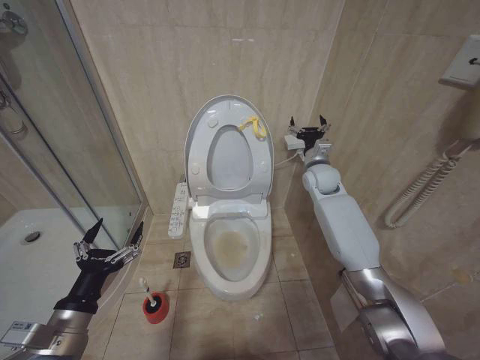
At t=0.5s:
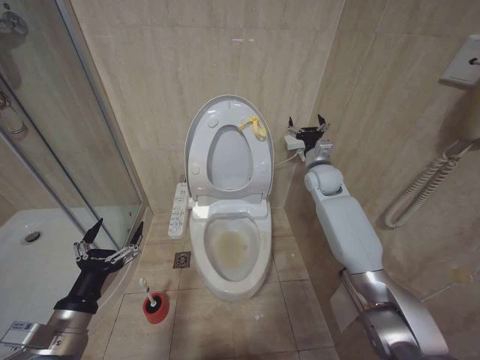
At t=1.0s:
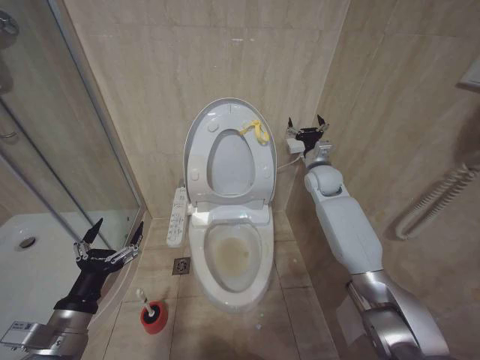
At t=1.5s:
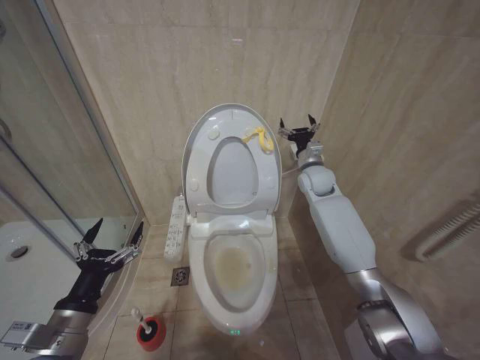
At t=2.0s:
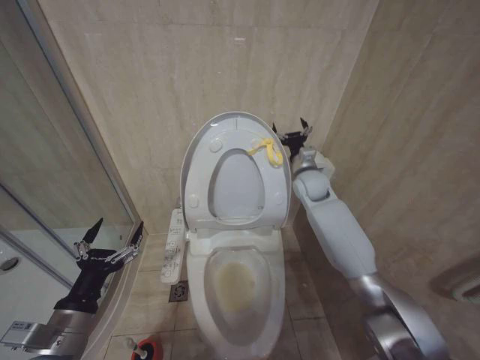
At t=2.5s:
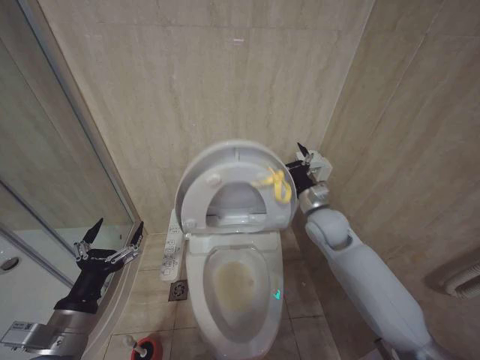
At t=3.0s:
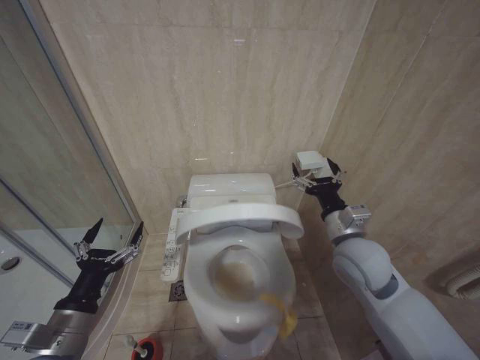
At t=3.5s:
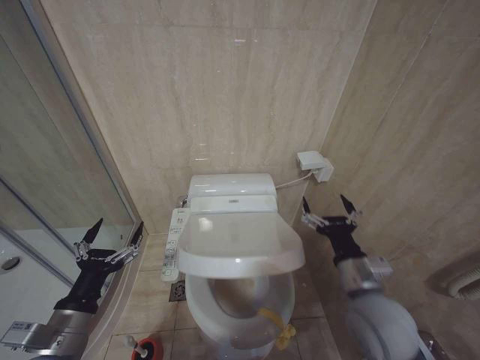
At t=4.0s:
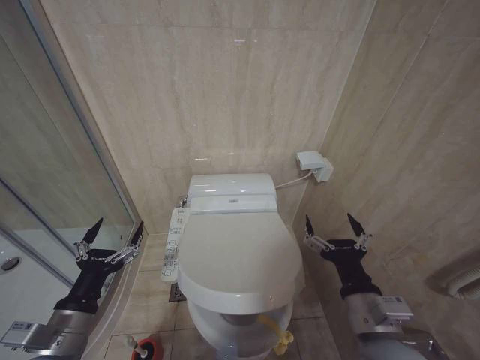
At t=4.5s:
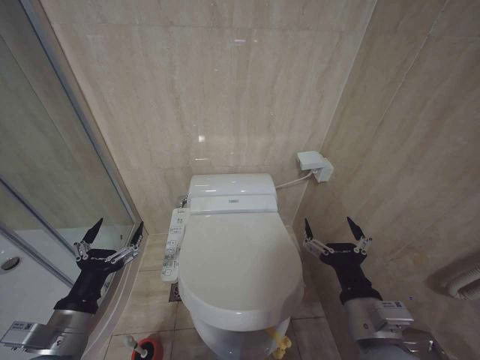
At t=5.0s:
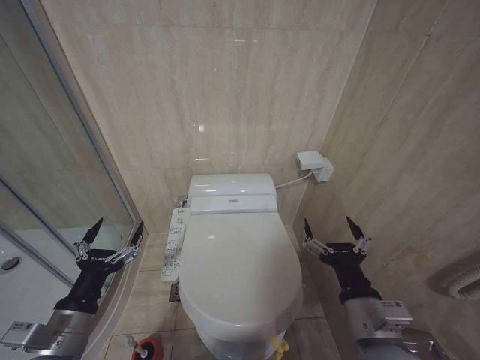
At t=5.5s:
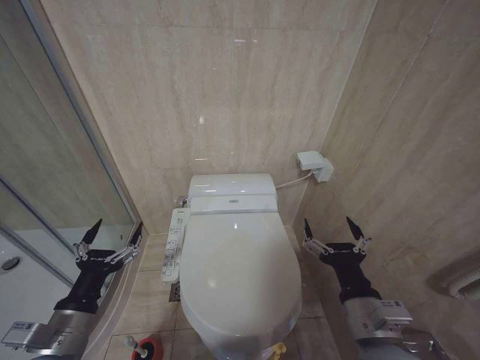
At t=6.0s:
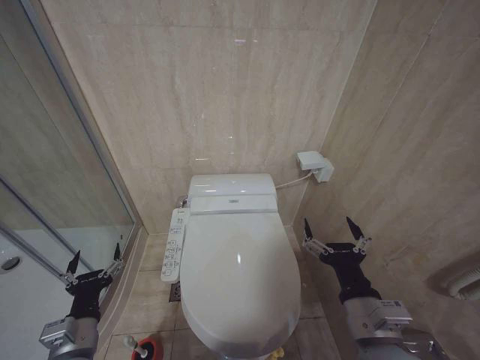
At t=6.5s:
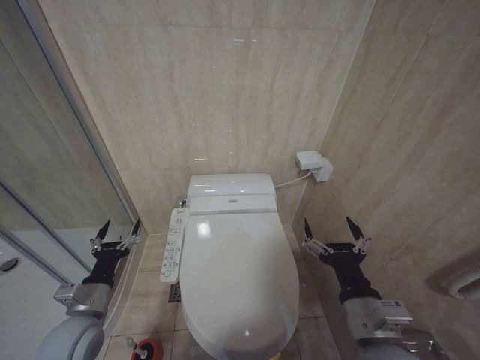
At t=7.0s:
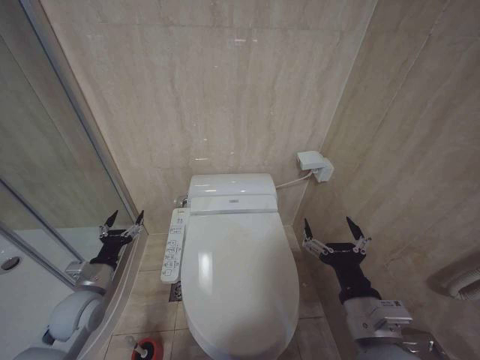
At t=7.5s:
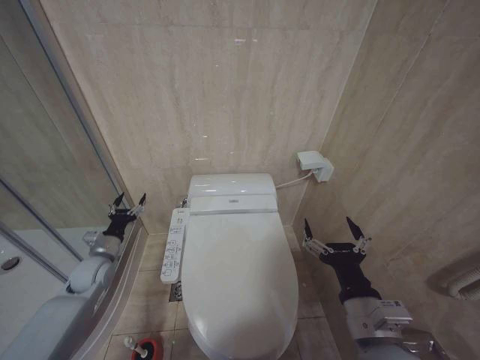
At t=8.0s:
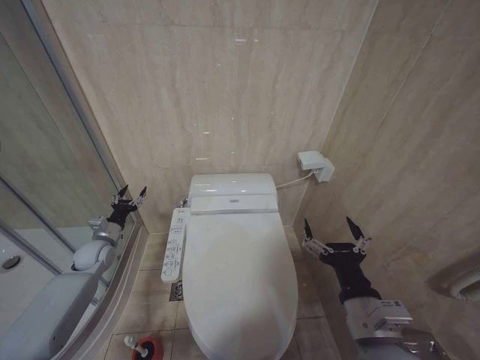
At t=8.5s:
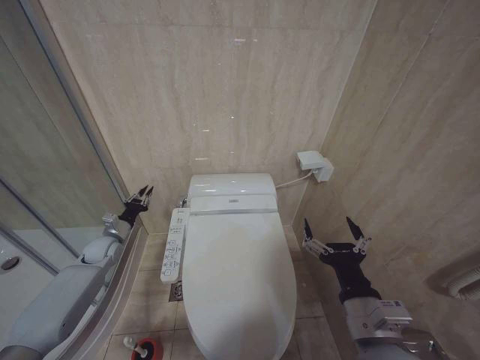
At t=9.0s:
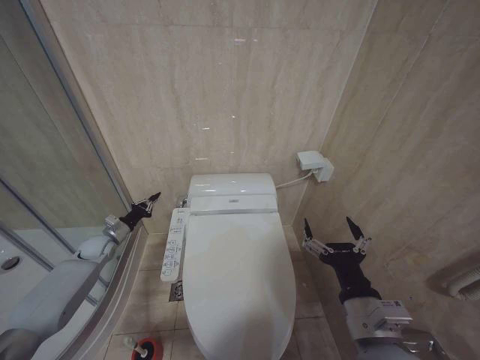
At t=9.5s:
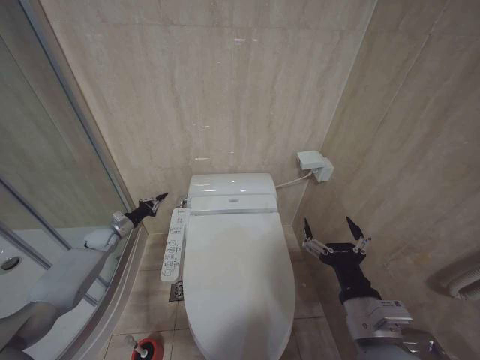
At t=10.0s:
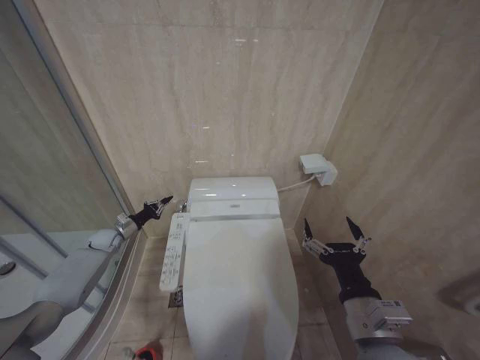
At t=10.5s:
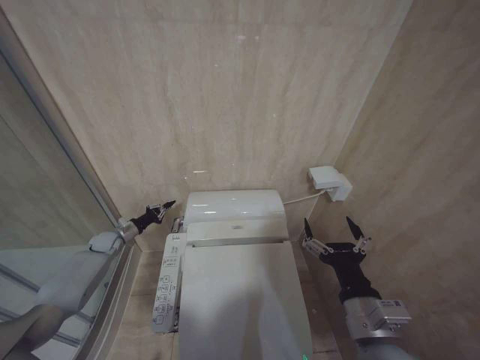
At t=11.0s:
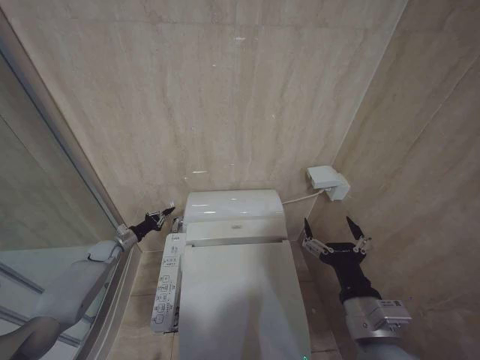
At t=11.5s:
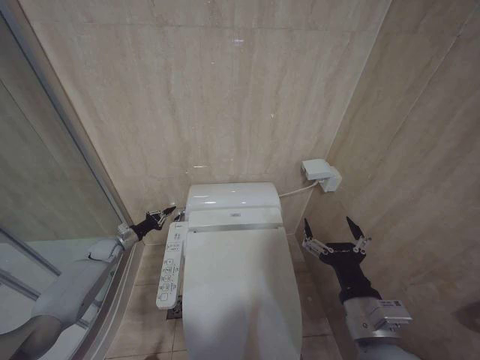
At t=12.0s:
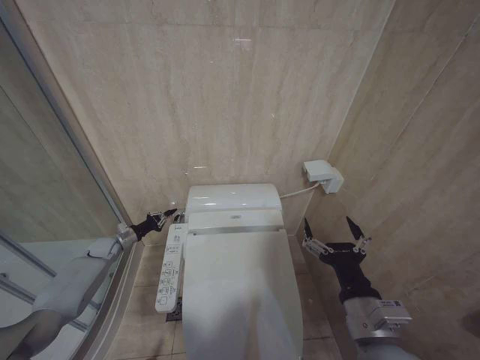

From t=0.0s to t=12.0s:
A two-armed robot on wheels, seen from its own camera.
Task of the whole recording: Open the toilet lid, clean the toilet bowl with a toilet brush, close the toilet lid, and flush.
From t=2.0s to t=4.0s: The right gripper goes about 40 cm backward.
From t=4.0s to t=6.0s: The left gripper is displaced downward by roughly 5 cm.
From t=6.0s to t=8.0s: The left gripper goes roughly 30 cm forward and to the left.
From t=8.0s to t=10.0s: The left gripper goes about 10 cm forward, and closes its fingers.
From t=10.0s to t=12.0s: The grippers move only a little.

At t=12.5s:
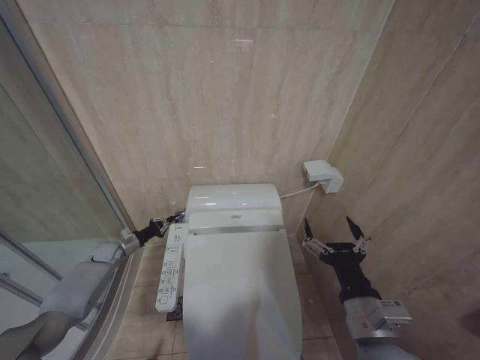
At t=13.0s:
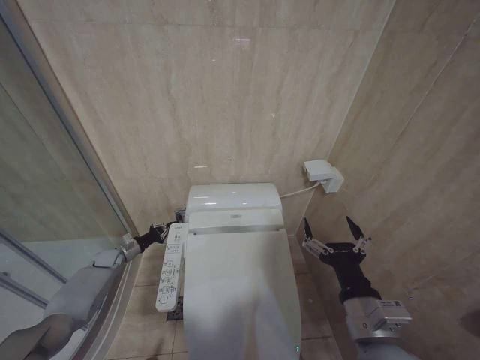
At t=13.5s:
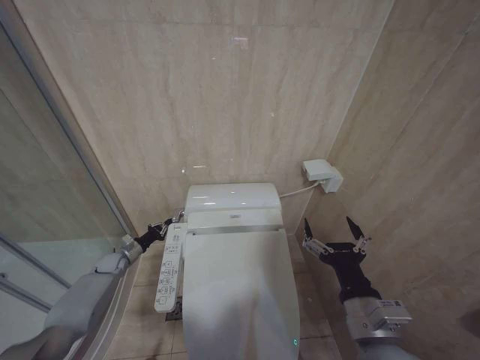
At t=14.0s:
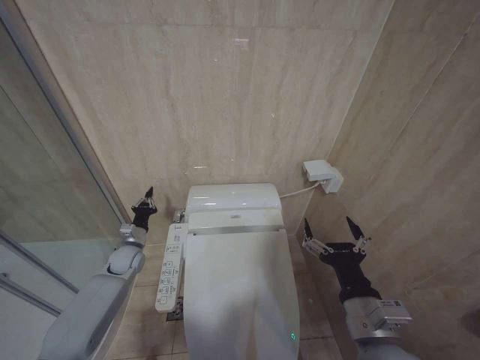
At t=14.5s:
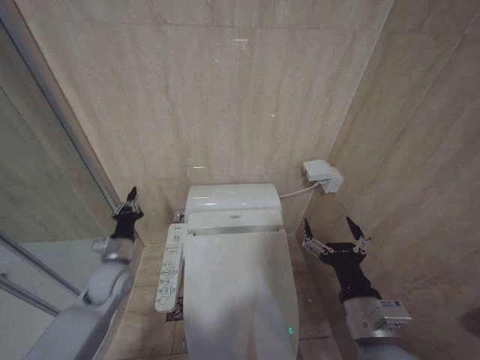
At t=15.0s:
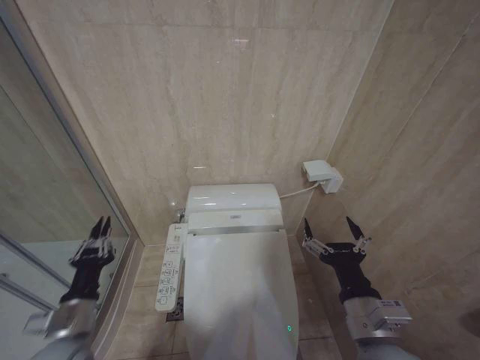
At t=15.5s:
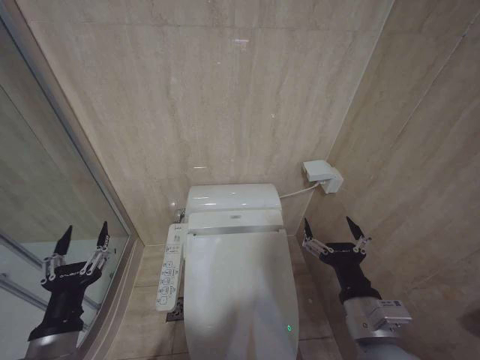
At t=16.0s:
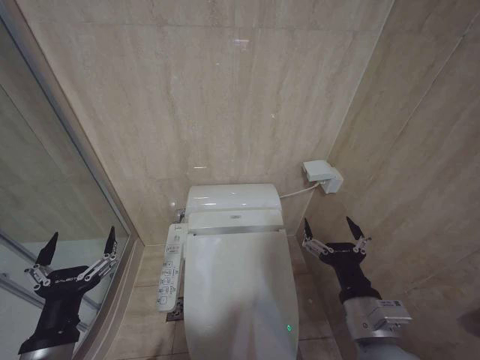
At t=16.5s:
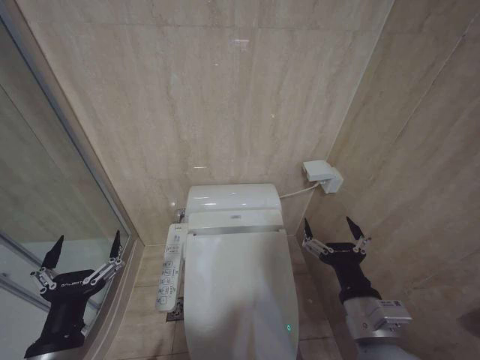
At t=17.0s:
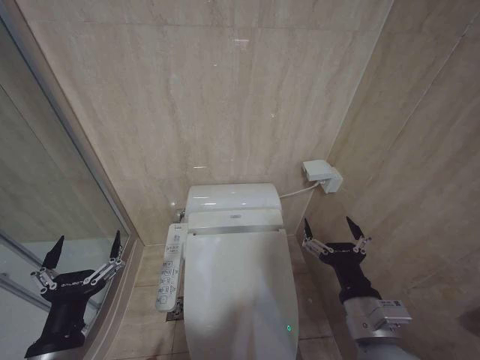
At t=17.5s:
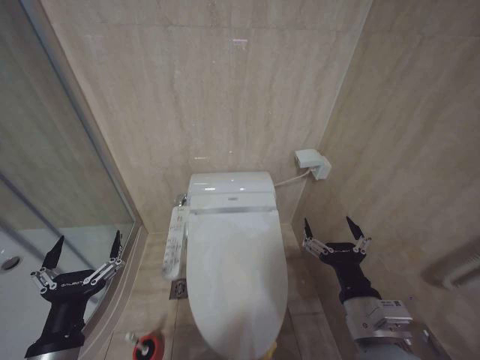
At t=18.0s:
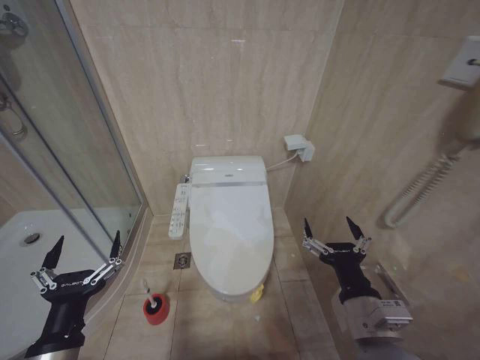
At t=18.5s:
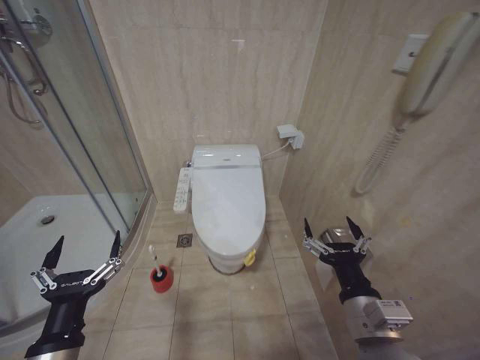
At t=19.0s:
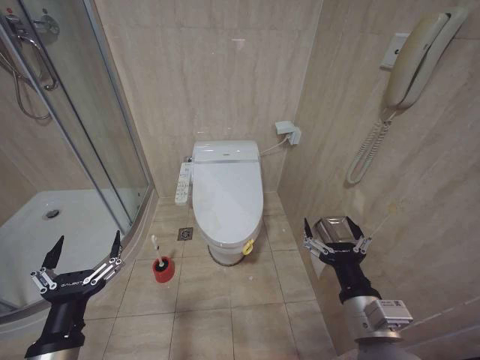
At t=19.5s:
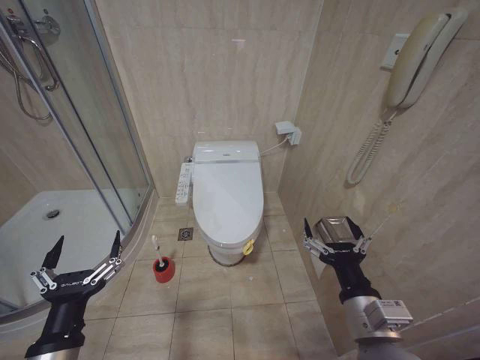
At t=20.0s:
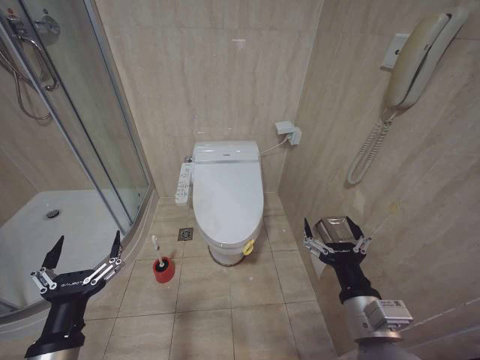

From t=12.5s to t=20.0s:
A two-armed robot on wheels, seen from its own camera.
Task of the whole recording: Open the toilet lid, clean the toilet bowl with a toilet brush, close the toilet lid, and flush.
From t=12.5s to t=14.5s: The left gripper is displaced backward, to the right and upward by roughly 20 cm.
From t=14.5s to t=16.5s: The left gripper is displaced backward by about 25 cm, and opens its fingers.

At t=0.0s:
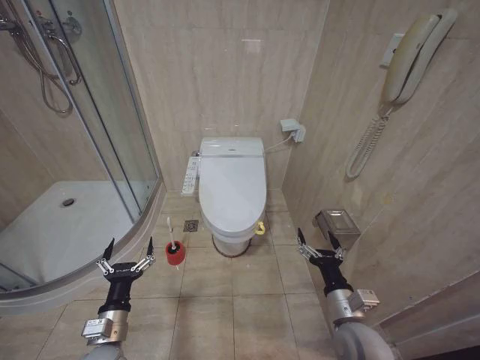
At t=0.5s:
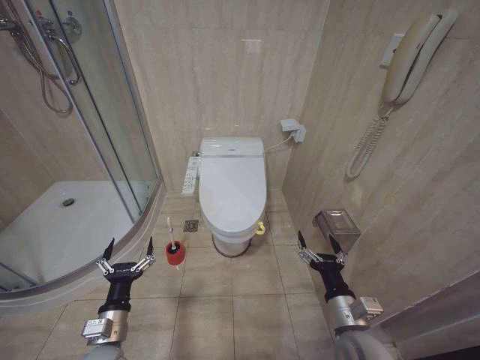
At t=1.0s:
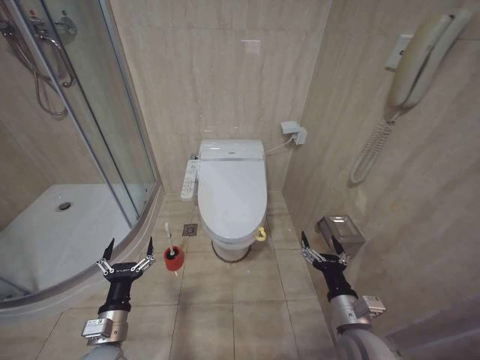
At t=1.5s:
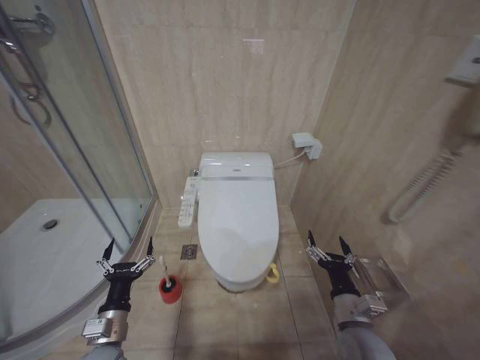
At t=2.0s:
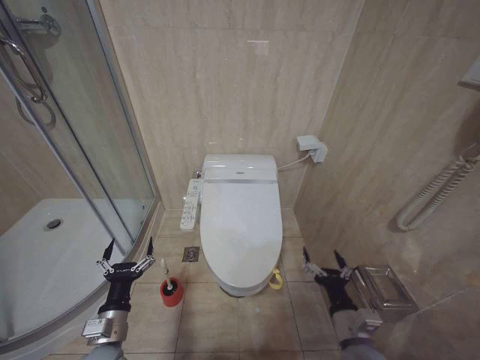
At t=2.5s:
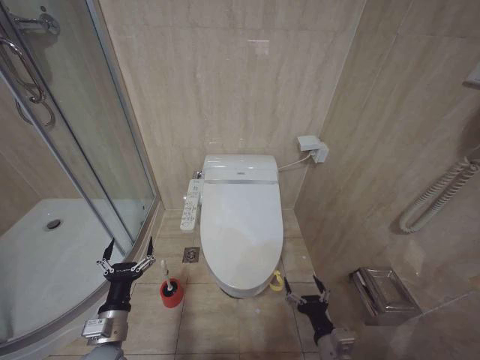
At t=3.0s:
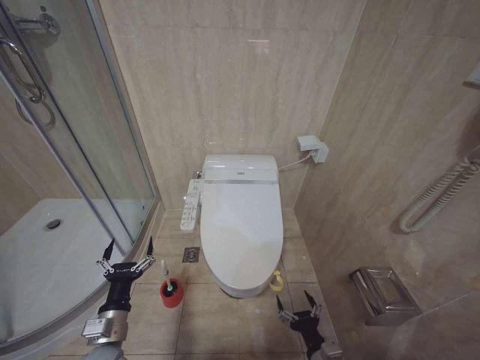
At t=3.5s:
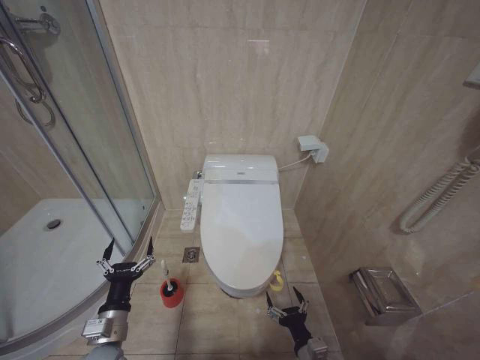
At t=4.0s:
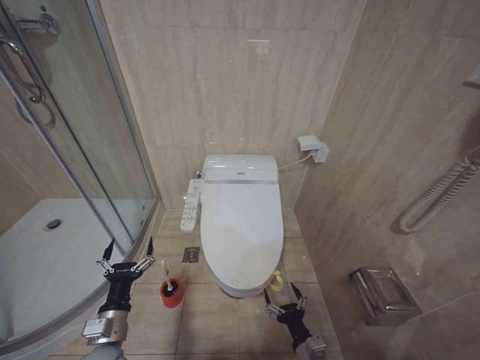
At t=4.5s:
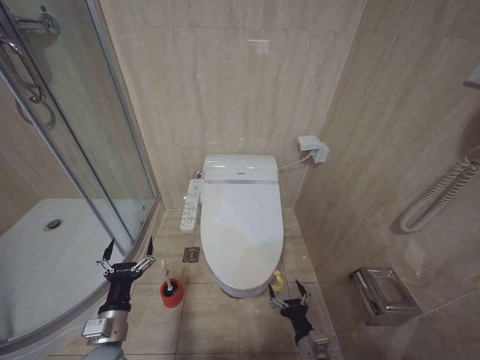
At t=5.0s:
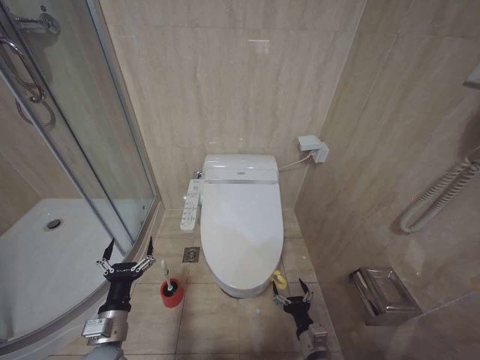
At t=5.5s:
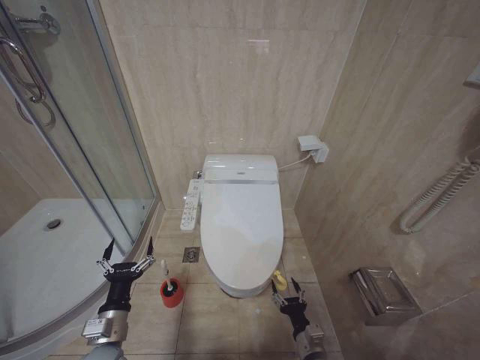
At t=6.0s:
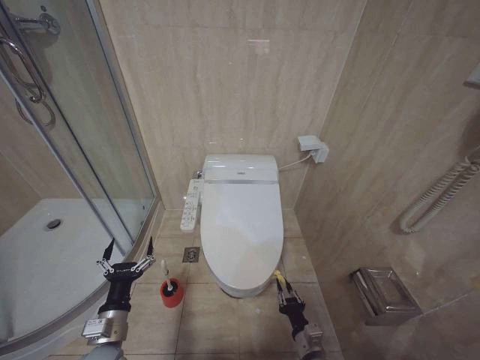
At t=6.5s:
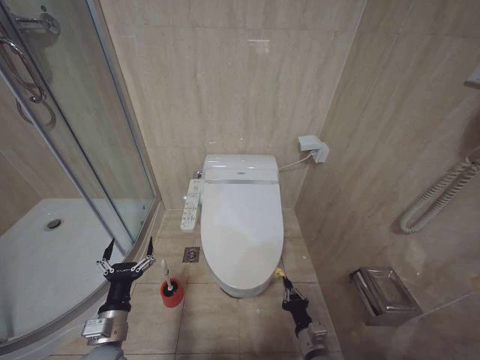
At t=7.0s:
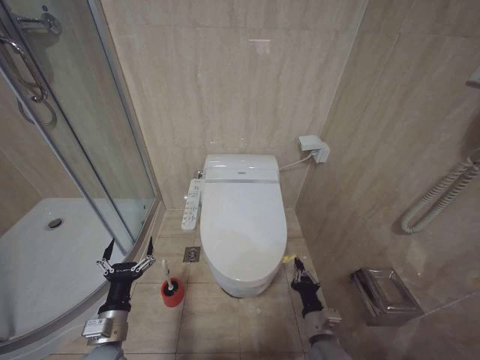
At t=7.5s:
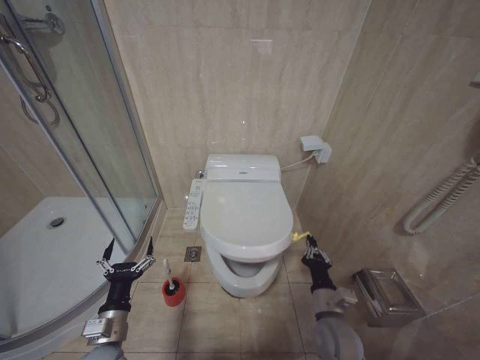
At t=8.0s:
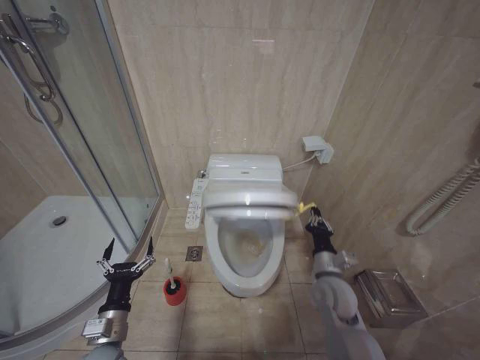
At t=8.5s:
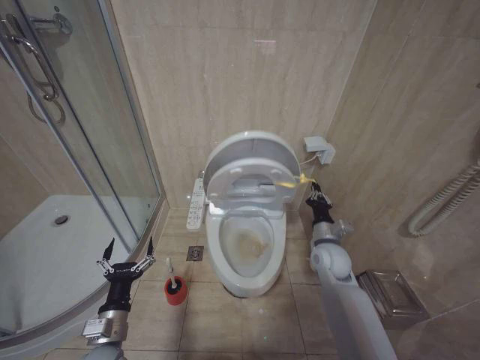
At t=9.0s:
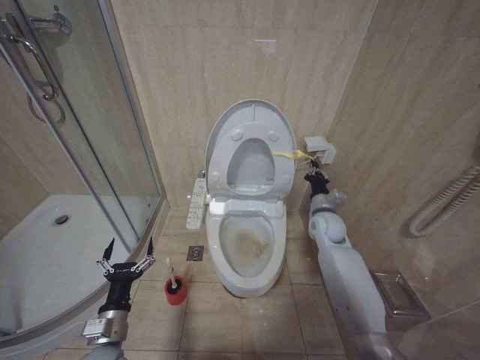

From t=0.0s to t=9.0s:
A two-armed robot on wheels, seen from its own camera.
Task of the whole recording: Open the toilet lid, clean the toilet bowl with a toilet brush, close the toilet lid, and flush.
From t=2.0s to t=4.5s: The right gripper travels downward by some 15 cm.
From t=4.5s to t=7.0s: The right gripper closes.
From t=7.0s to t=9.0s: The right gripper shifts some 30 cm forward and upward.
